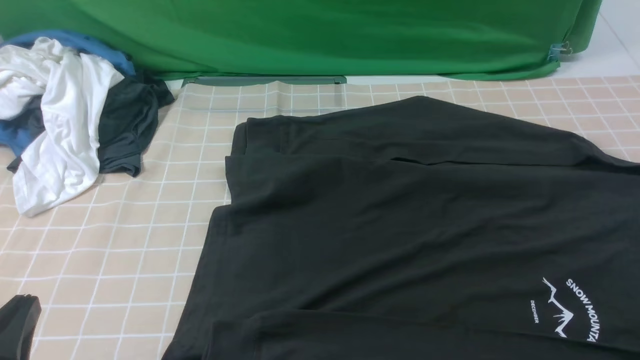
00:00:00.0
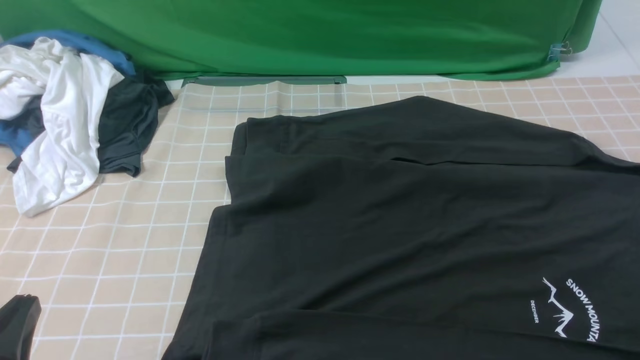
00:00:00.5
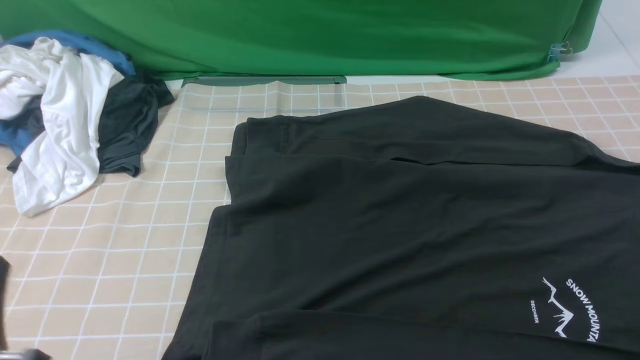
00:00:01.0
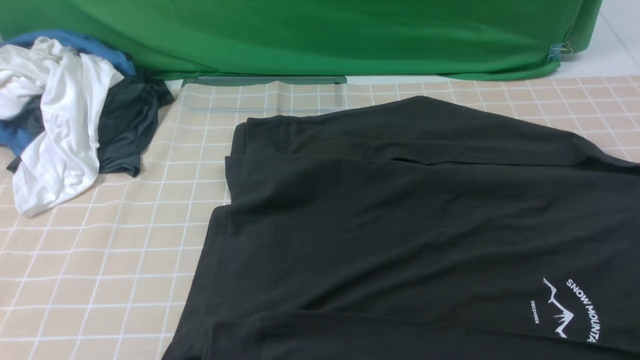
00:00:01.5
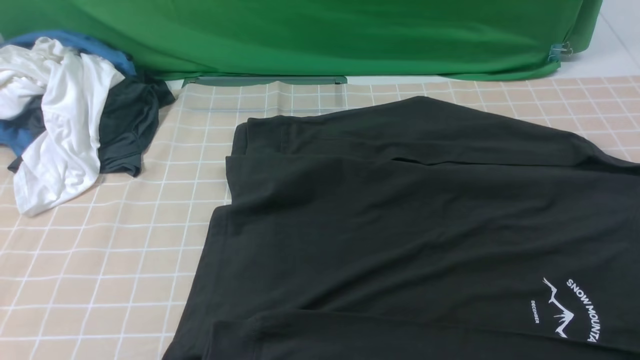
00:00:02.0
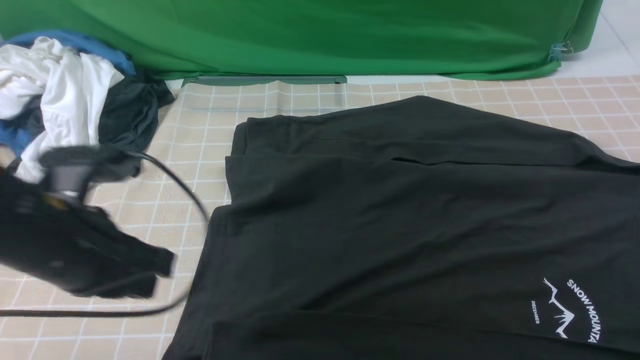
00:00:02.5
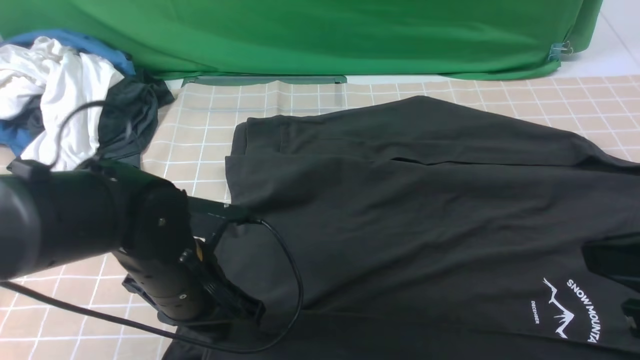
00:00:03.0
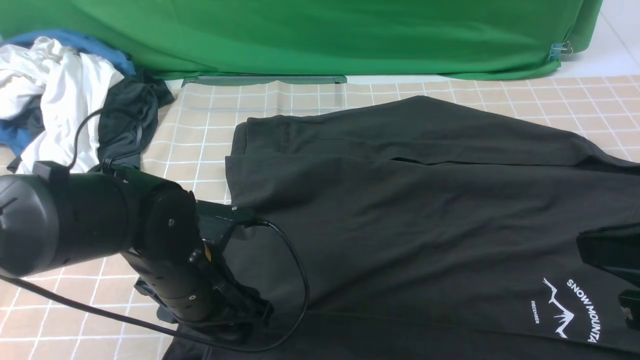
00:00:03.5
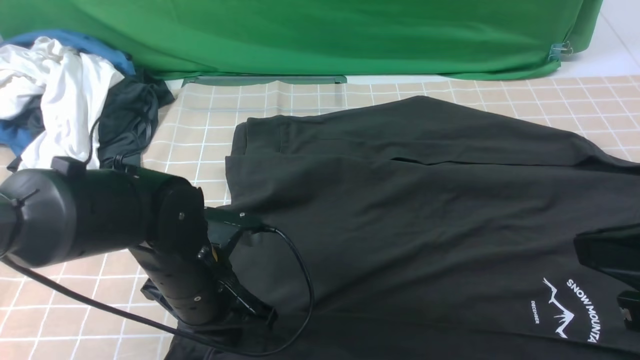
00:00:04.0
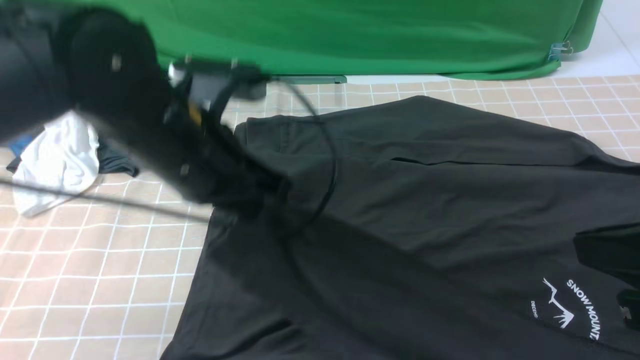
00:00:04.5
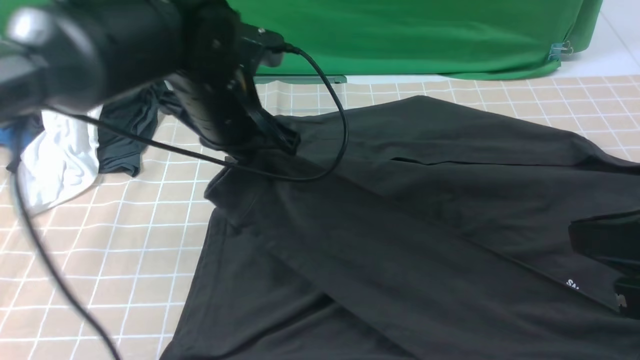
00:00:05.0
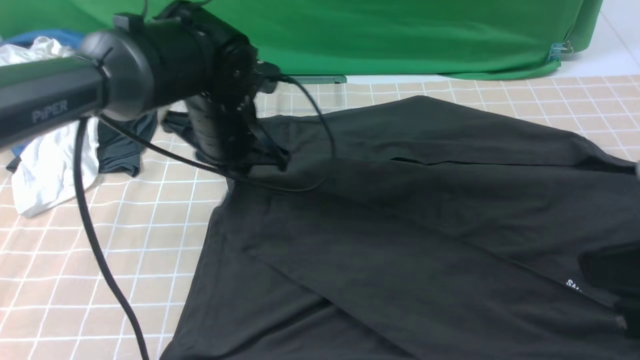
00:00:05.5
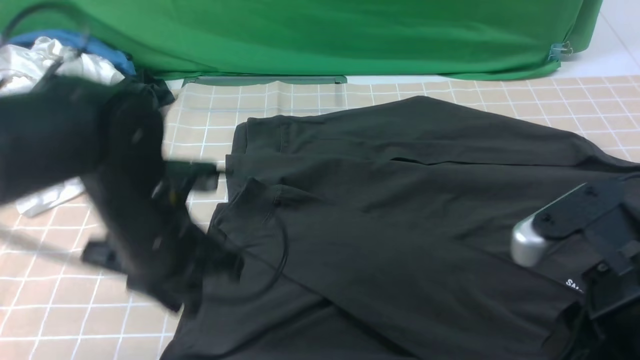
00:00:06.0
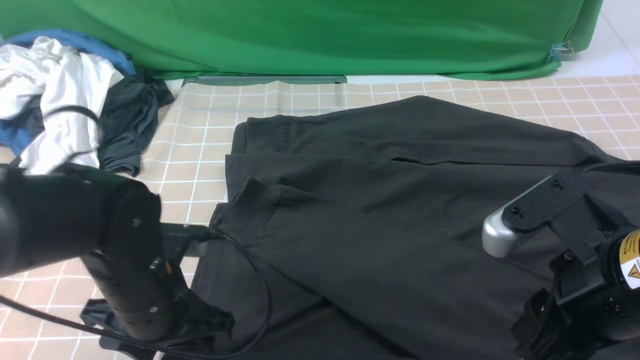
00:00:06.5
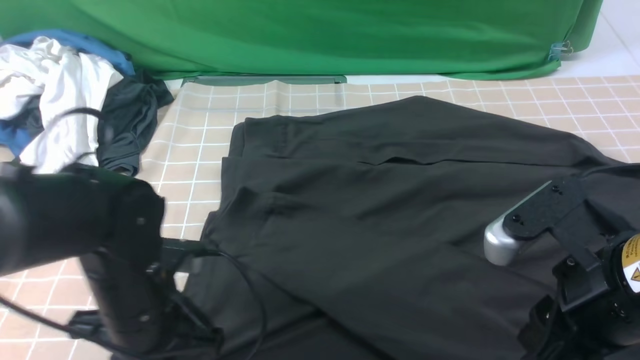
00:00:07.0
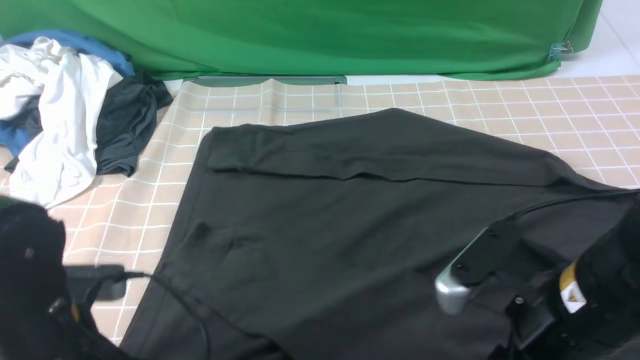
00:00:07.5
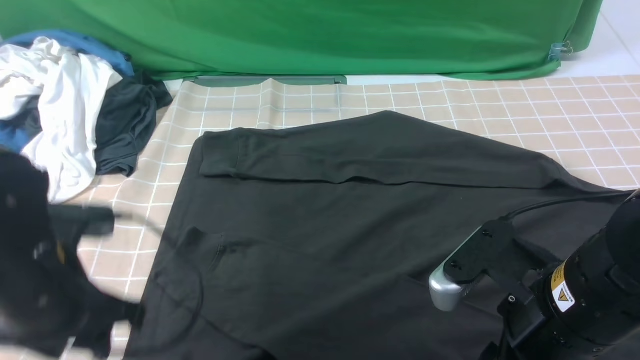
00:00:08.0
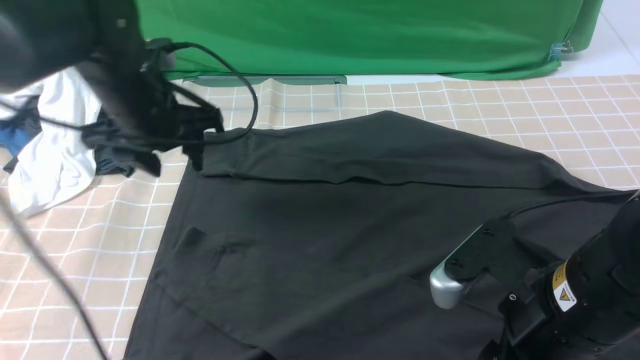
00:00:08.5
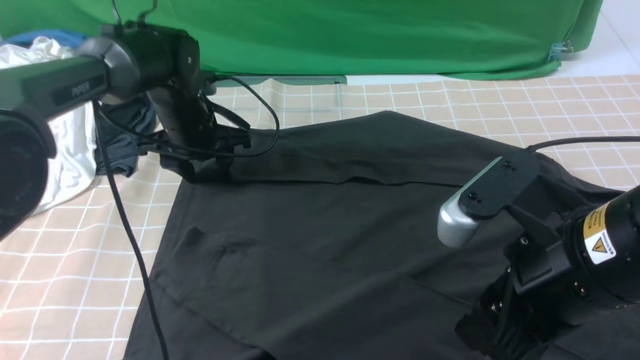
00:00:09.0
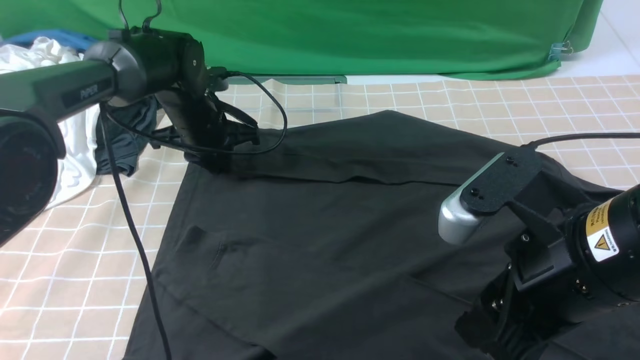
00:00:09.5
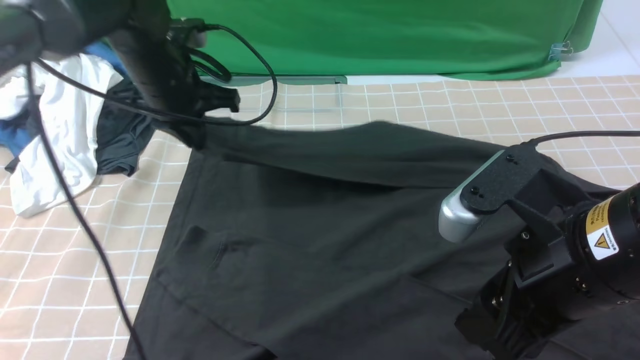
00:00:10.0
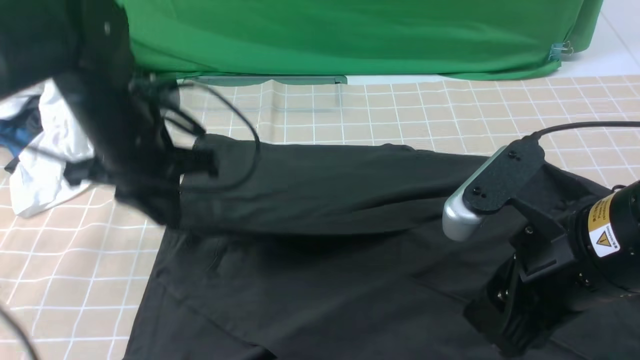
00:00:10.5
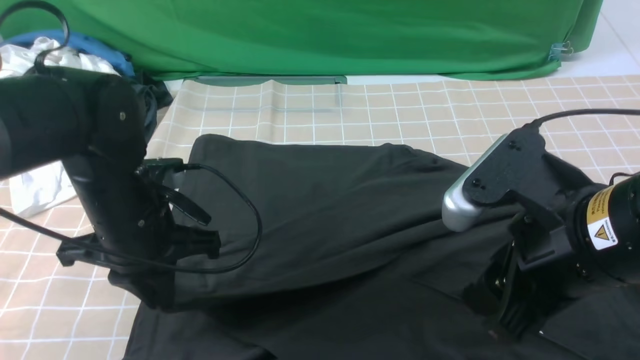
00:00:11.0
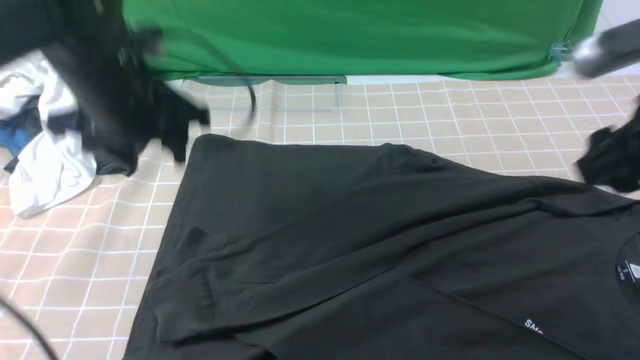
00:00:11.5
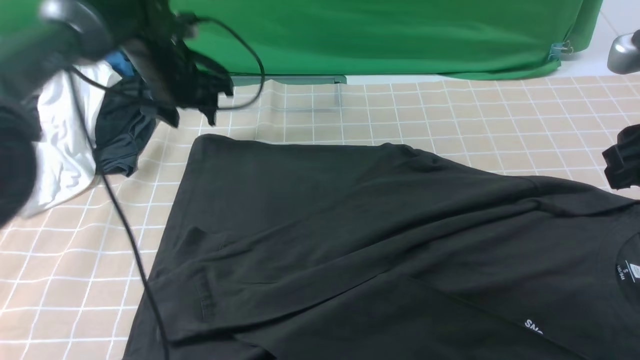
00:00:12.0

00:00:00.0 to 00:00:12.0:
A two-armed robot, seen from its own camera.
Step, 00:00:00.0 to 00:00:03.5: use the left arm to clamp the cuff closest to it.
Step, 00:00:04.0 to 00:00:05.5: use the left arm to drag and place the cuff at the centered position on the left edge of the fabric.
Step, 00:00:06.0 to 00:00:09.5: use the left arm to clamp the cuff farthest from it.
Step, 00:00:10.0 to 00:00:11.0: use the left arm to drag and drop the cuff onto the cuff closest to the left arm.
00:00:00.0 to 00:00:02.0: The left gripper is displaced upward by some 15 cm.
00:00:02.0 to 00:00:04.0: The left gripper heads downward, forward and to the right, covering about 25 cm, and opens and closes again, while the right gripper travels to the left, upward and forward by about 15 cm.
00:00:04.0 to 00:00:06.0: The right gripper moves downward, roughly 5 cm, and opens its fingers. Meanwhile the left gripper moves roughly 15 cm forward and comes back.
00:00:06.0 to 00:00:08.0: The right gripper shifts by approximately 5 cm, and opens. The left gripper shifts about 5 cm to the left.
00:00:08.0 to 00:00:10.0: The right gripper moves upward, about 5 cm. The left gripper heads forward, covering about 20 cm, and closes its fingers.
00:00:10.0 to 00:00:12.0: The left gripper moves about 15 cm backward and comes back, and opens, while the right gripper heads to the right and forward, covering about 15 cm.

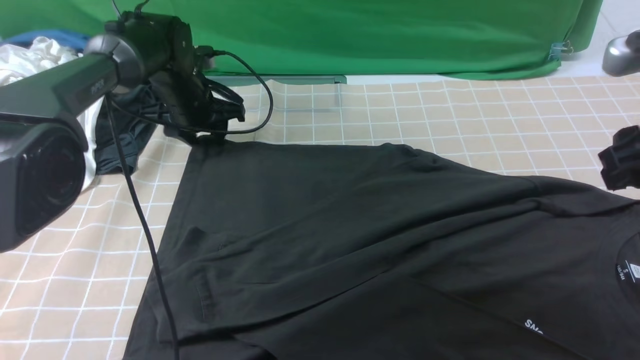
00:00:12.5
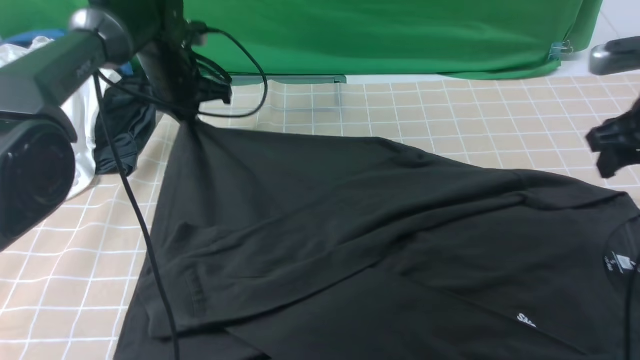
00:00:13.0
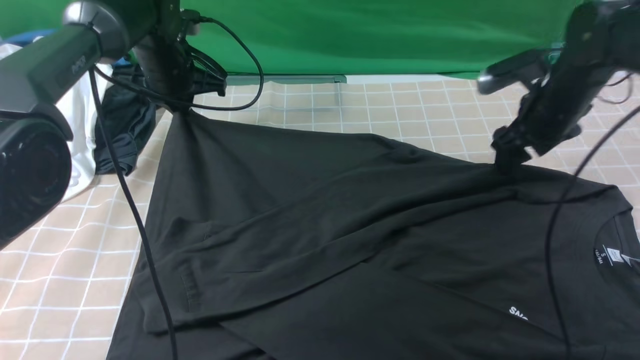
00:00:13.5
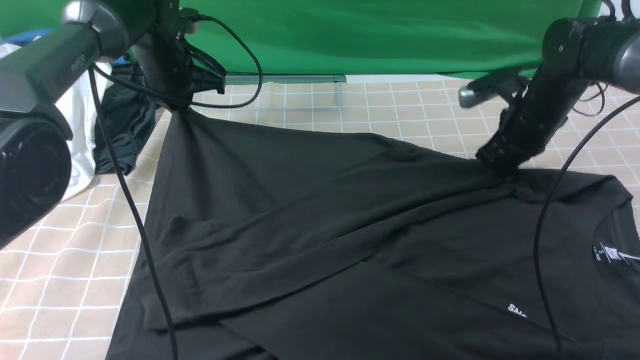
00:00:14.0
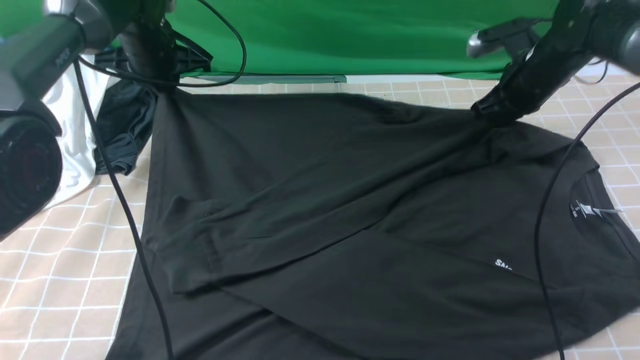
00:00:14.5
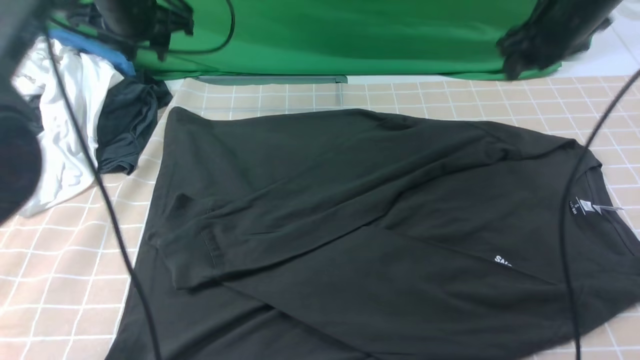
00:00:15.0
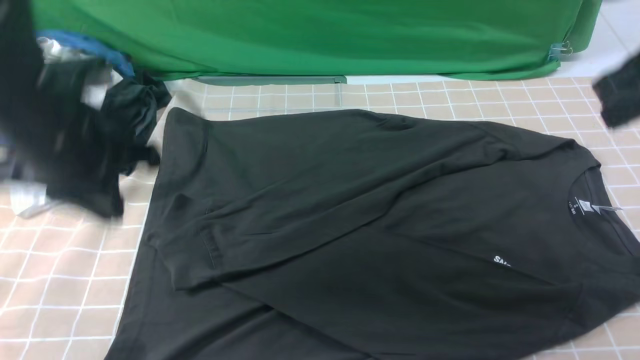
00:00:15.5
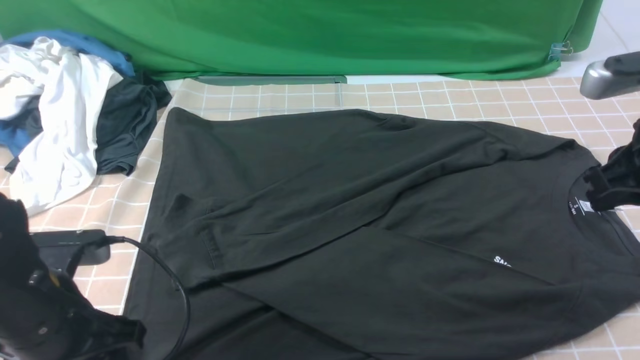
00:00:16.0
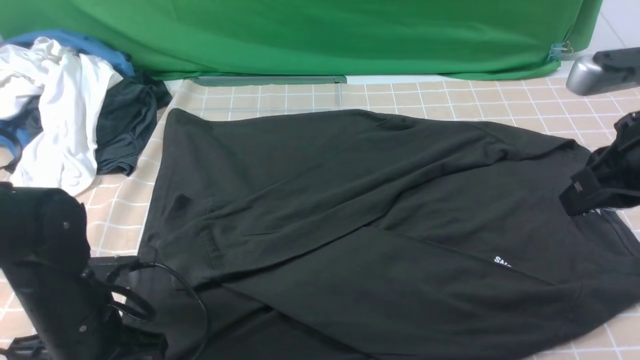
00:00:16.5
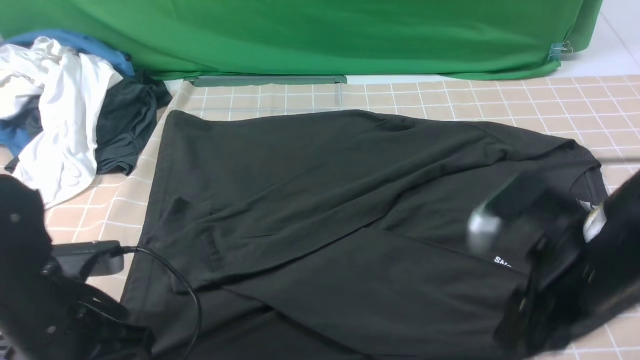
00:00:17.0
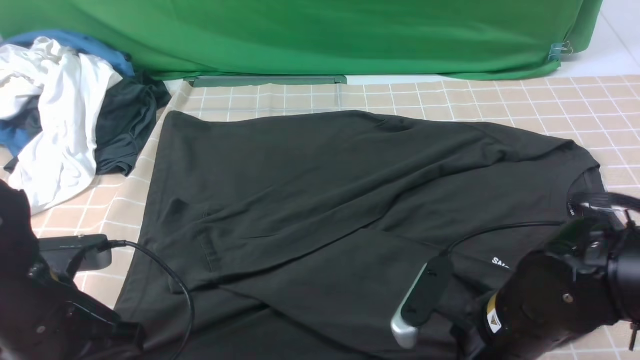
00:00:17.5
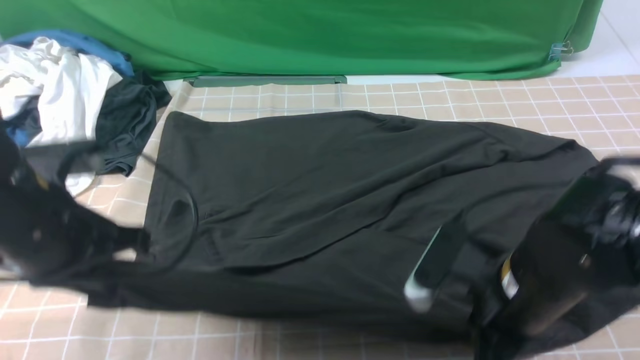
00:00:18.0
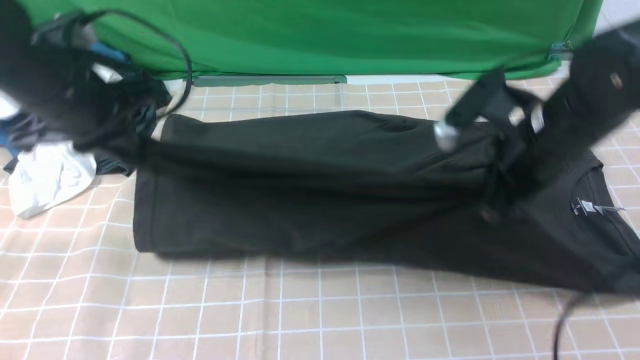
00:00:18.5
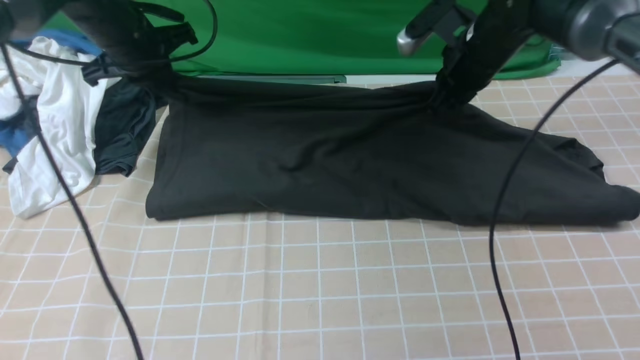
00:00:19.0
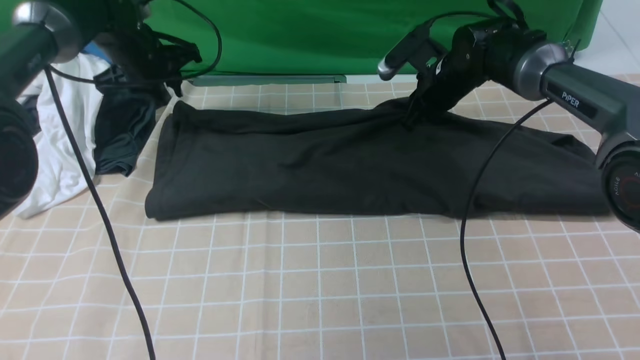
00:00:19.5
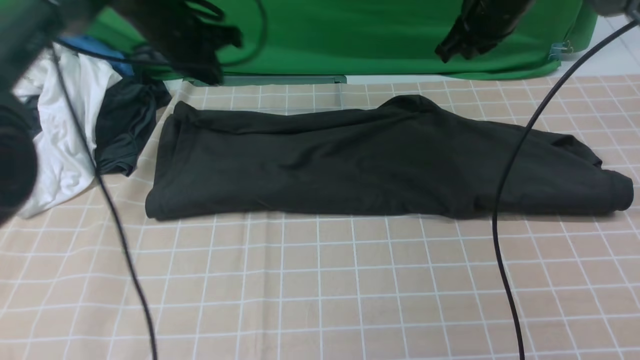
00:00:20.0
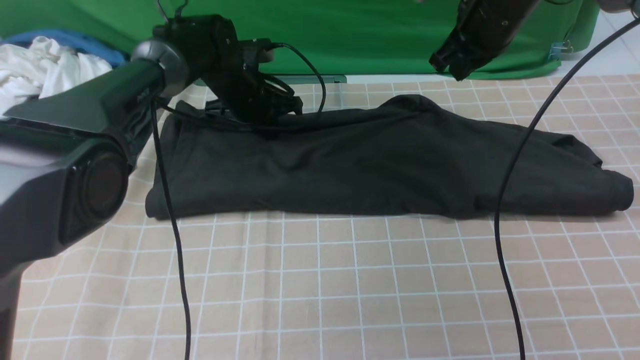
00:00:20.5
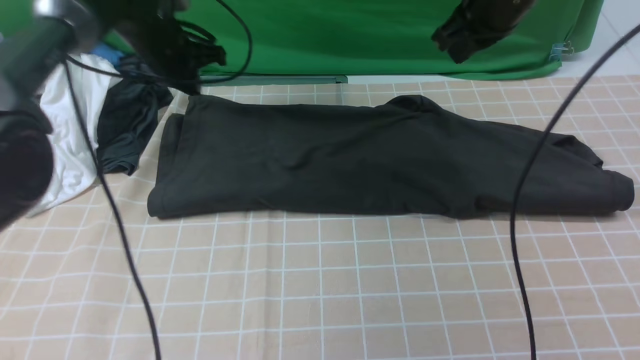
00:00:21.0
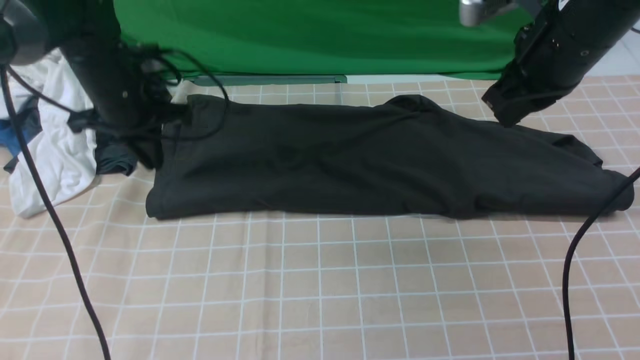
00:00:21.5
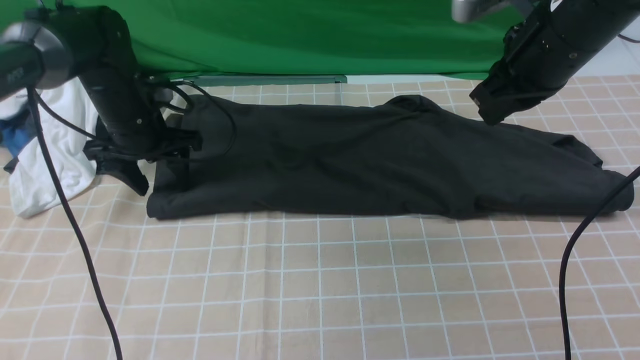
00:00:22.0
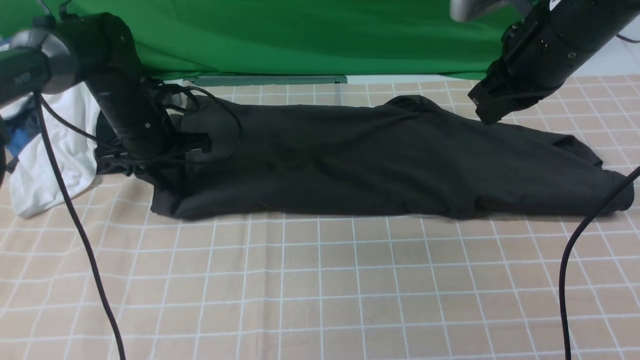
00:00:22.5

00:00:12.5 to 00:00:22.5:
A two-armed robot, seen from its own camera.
Step, 00:00:12.5 to 00:00:17.5: use both arms simultaneously to clamp the lower edge of the clothing fabric.
Step, 00:00:18.0 to 00:00:19.5: use both arms to drag the lower edge of the fabric forward and fold it over the upper edge.
00:00:12.5 to 00:00:14.5: The left gripper goes some 5 cm upward, and closes its fingers. The right gripper moves forward and downward, roughly 25 cm, and closes its fingers.
00:00:14.5 to 00:00:16.5: The right gripper heads backward and upward, covering about 25 cm. The left gripper is displaced backward by about 30 cm, and opens.
00:00:16.5 to 00:00:18.5: The left gripper heads upward and forward, covering some 20 cm, and closes, while the right gripper goes some 10 cm to the left and forward, and opens and closes again.
00:00:18.5 to 00:00:20.5: The right gripper goes some 15 cm forward. Meanwhile the left gripper travels forward, downward and to the right by some 25 cm, and opens, then closes again.
00:00:20.5 to 00:00:22.5: The left gripper moves to the left and backward, about 15 cm, and opens and closes again, while the right gripper goes approximately 10 cm backward.
